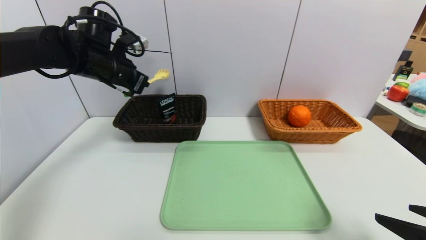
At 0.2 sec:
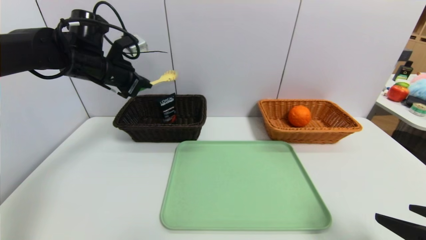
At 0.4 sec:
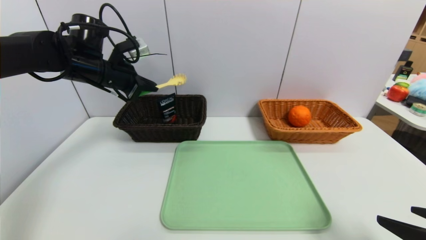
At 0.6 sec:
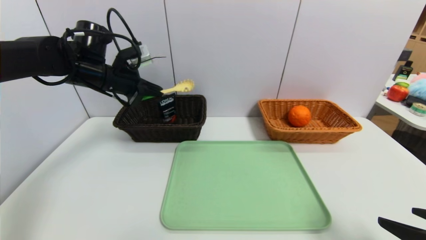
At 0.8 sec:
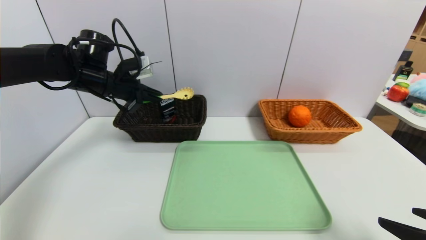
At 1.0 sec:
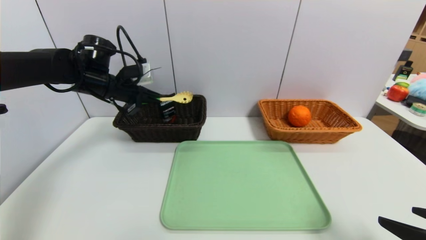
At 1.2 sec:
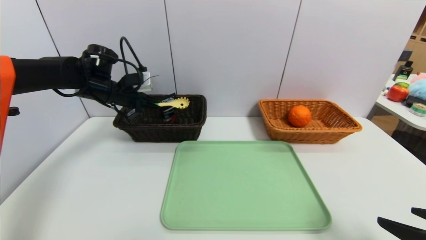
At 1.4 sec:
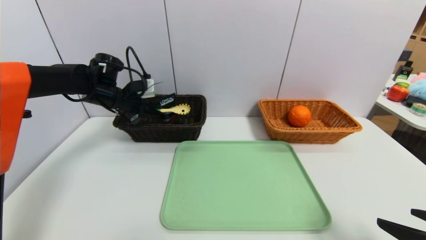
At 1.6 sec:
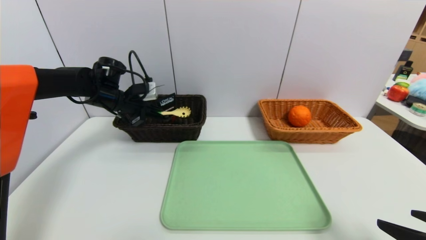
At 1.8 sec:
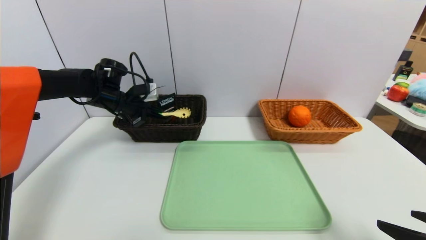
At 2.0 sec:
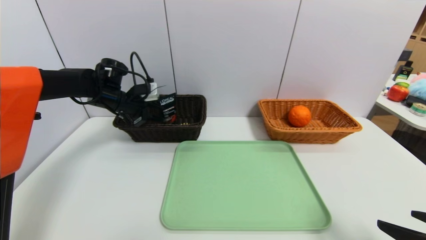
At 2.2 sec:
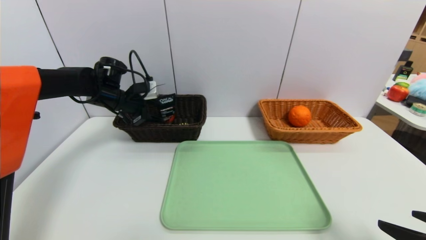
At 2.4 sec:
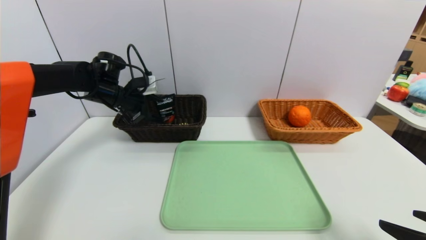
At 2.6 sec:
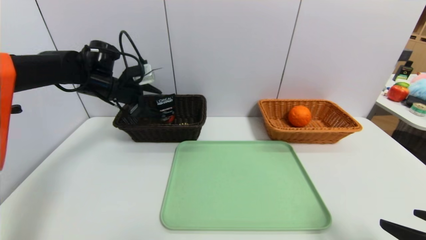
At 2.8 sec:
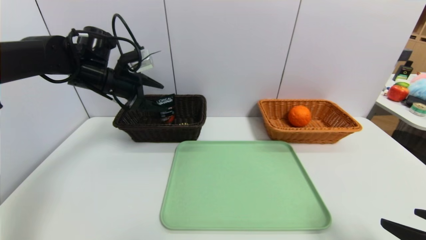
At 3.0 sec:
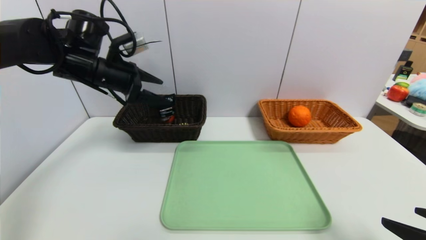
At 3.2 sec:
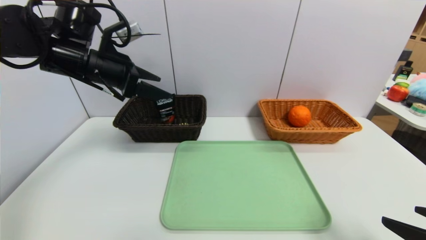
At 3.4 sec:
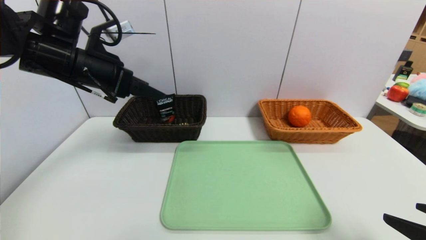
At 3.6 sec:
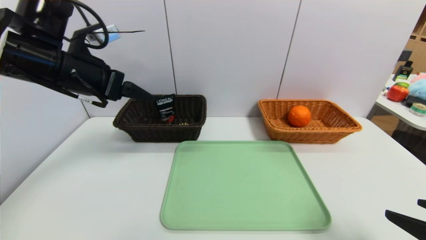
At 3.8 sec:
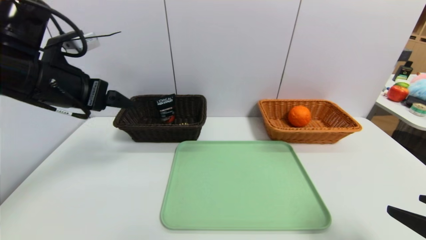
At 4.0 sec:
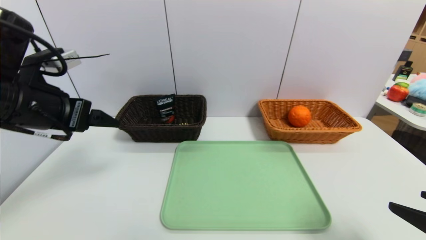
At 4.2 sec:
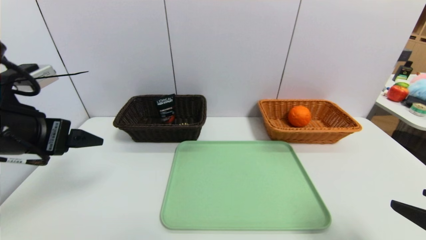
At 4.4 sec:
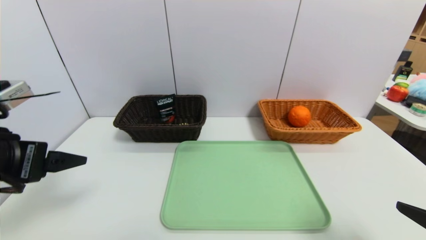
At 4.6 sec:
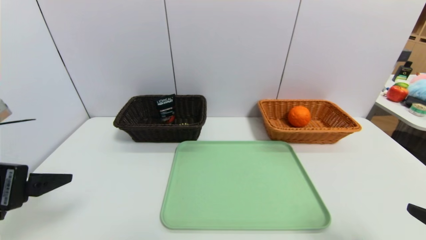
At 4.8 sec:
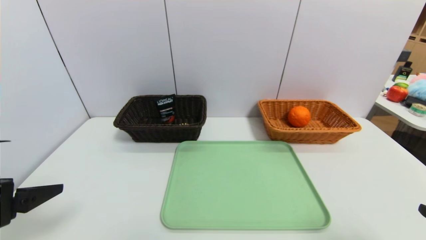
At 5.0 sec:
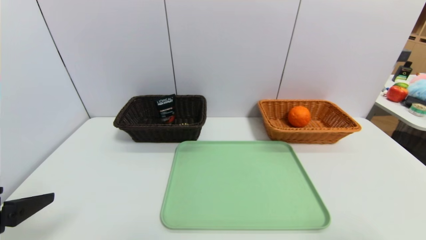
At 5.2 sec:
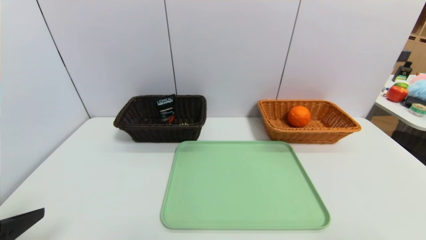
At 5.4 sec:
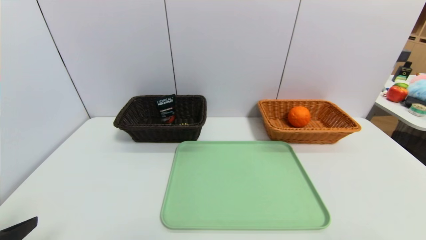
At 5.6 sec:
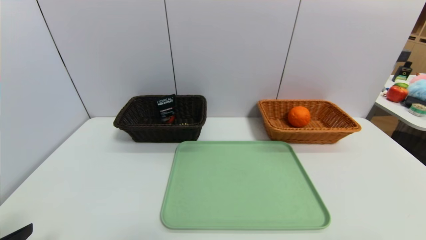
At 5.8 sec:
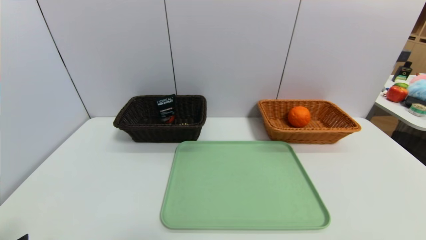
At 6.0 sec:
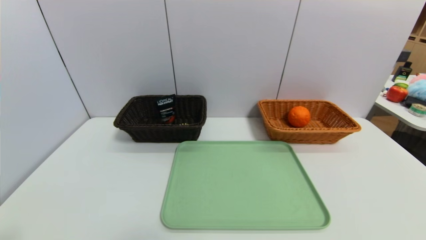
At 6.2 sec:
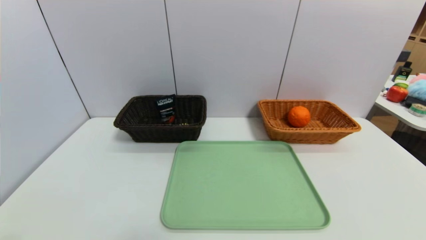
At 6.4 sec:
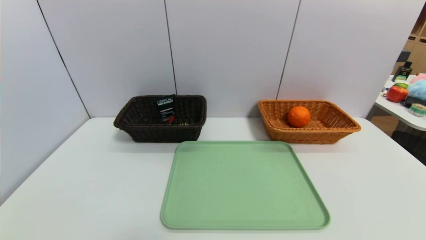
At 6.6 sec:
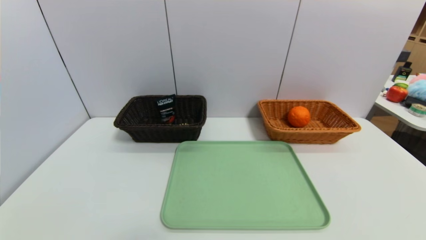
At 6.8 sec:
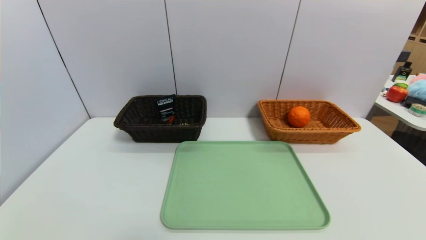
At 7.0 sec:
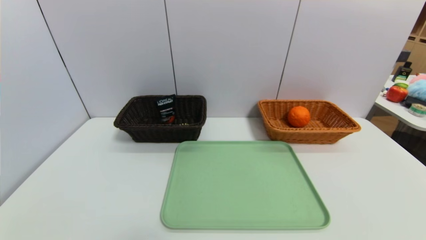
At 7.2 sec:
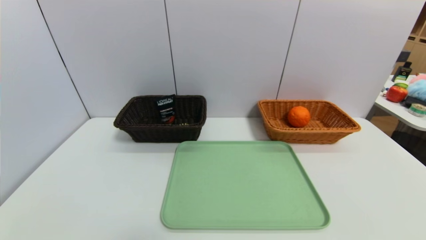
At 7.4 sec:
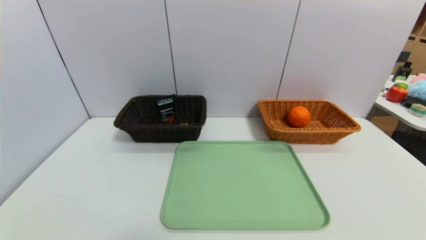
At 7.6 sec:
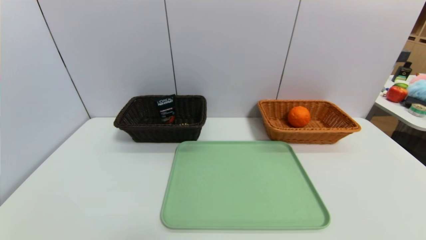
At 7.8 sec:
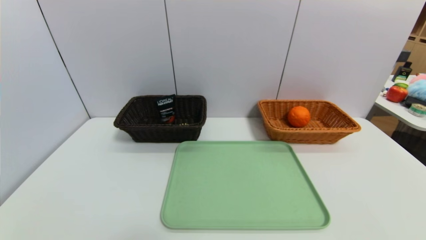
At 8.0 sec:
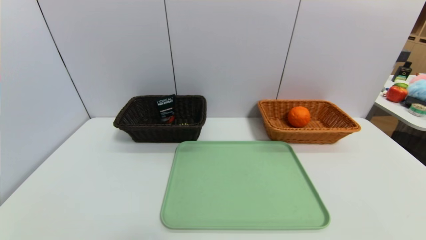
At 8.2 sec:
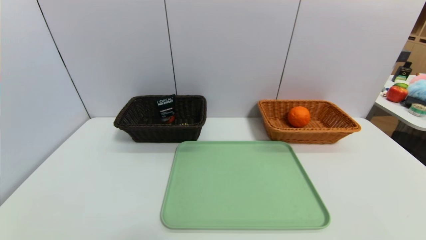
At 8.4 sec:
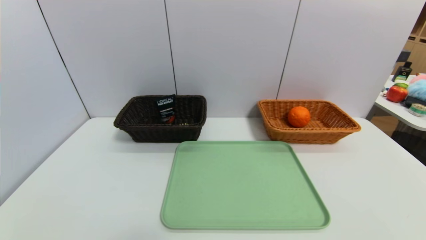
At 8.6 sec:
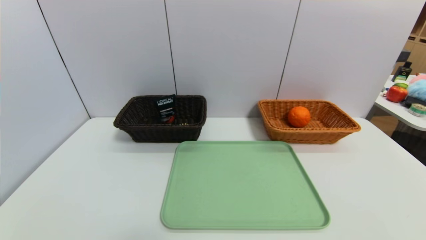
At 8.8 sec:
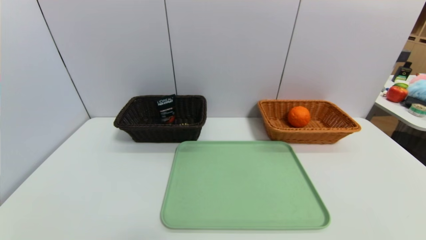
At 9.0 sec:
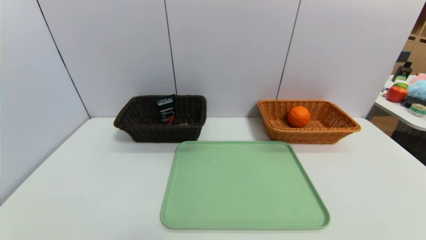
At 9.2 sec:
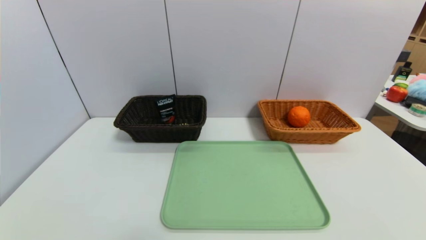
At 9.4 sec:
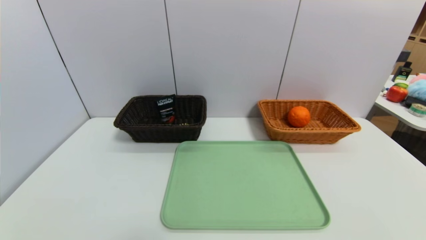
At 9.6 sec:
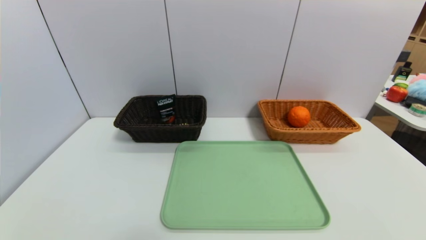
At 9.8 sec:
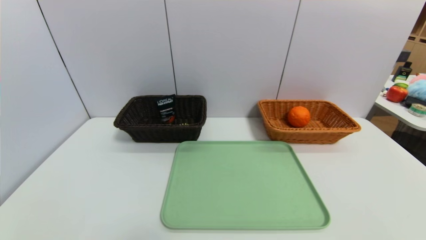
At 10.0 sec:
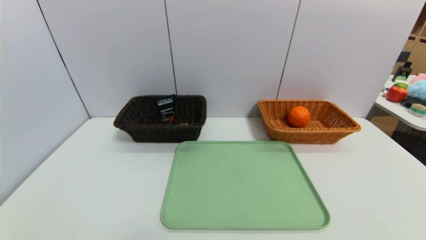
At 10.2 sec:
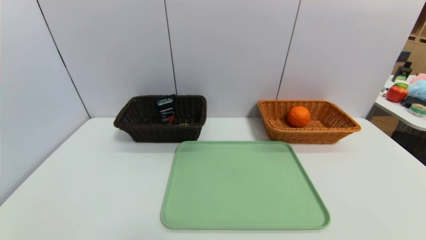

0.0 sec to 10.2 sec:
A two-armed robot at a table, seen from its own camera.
Task of the whole recording: place the food in the right basket with the right gripper, and place the non food items in the left basket with the left gripper.
Step, 0.0 sec to 2.6 sec: Grasp the back scratcher and put it in the left basket.
0.0 sec to 1.4 sec: The left gripper goes about 10 cm downward.
1.4 sec to 3.0 sec: The left gripper moves upward and backward, about 10 cm, and opens up.
3.0 sec to 4.4 sec: The left gripper heads backward, covering some 25 cm.
4.4 sec to 5.8 sec: The right gripper moves backward, approximately 5 cm, while the left gripper travels backward and downward by about 15 cm.
8.8 sec to 10.2 sec: Both grippers stay put.
